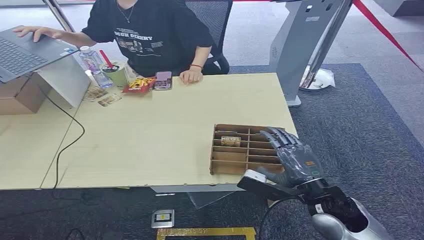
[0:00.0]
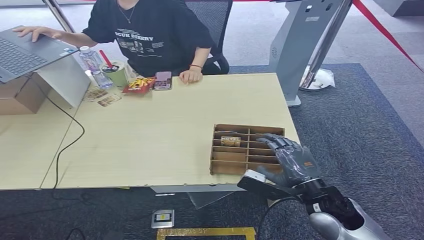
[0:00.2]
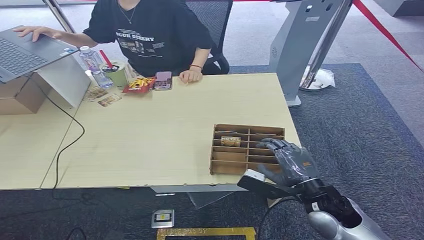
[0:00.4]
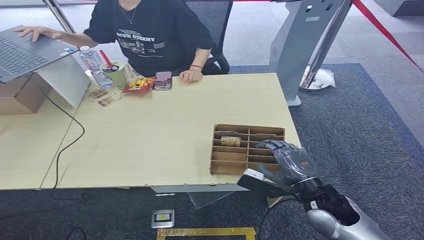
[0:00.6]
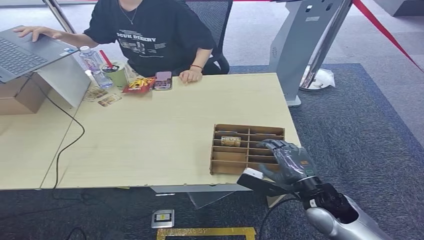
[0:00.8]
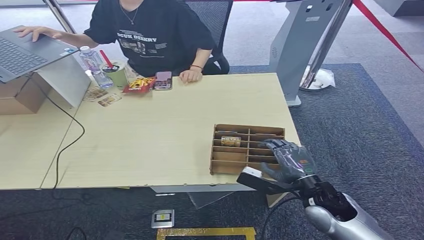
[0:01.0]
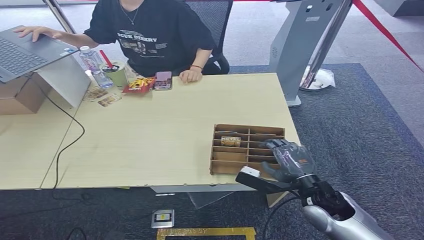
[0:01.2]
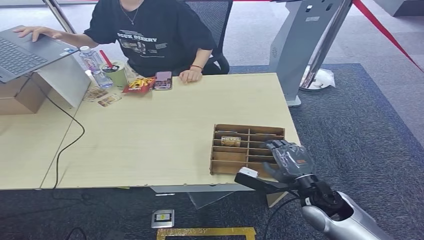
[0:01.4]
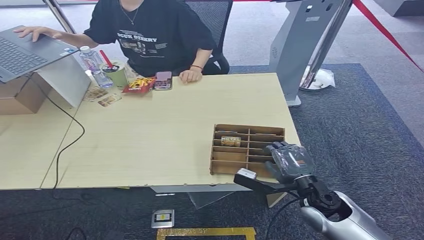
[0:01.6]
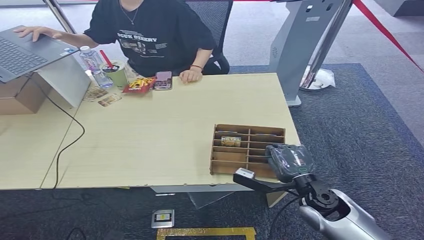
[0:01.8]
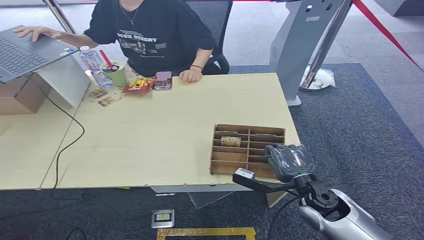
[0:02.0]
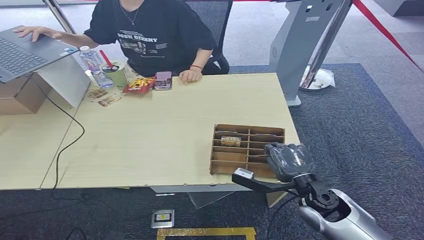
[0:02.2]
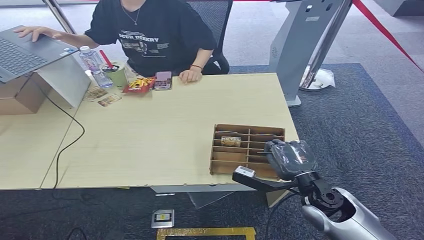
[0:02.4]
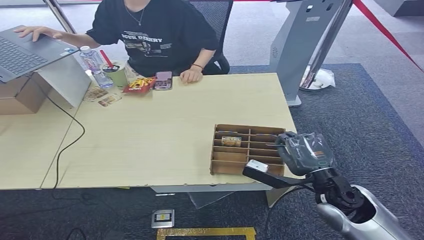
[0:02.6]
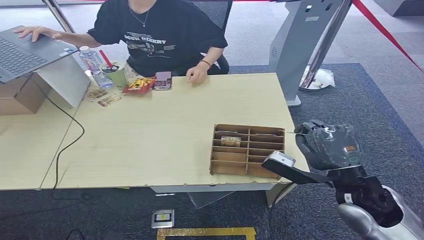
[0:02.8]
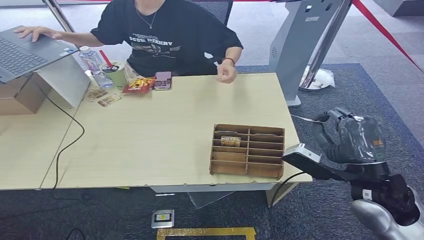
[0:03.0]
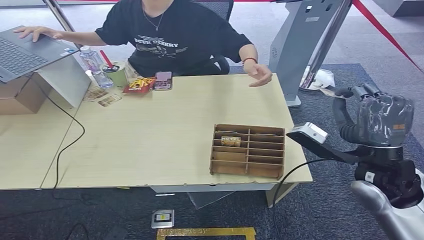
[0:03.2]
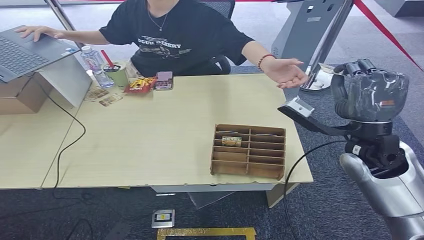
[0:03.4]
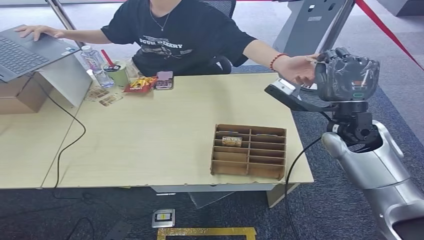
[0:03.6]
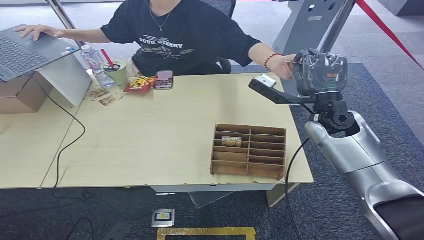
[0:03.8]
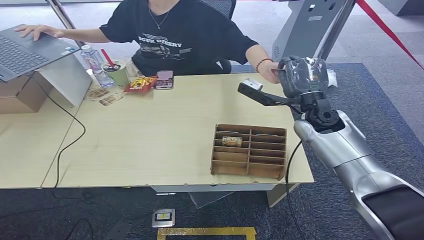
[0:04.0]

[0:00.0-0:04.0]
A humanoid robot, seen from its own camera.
Step, 0:00.0 to 0:02.8: Pick up the room card from the card holder.
Step, 0:03.0 to 0:04.0: Hand the room card to the target.
0:01.4 to 0:02.6: The right hand moves upward, roughly 5 cm.
